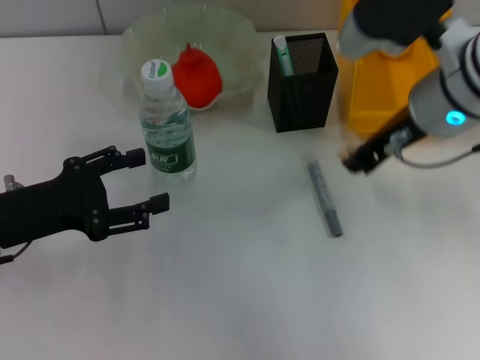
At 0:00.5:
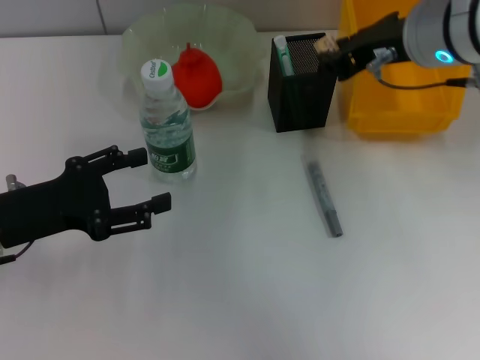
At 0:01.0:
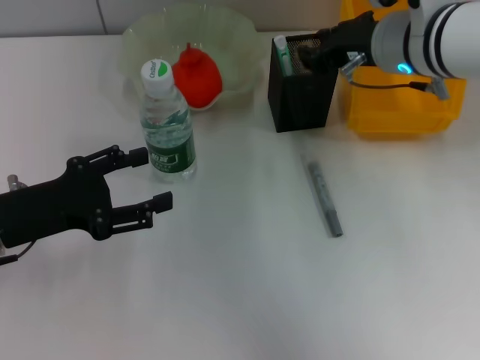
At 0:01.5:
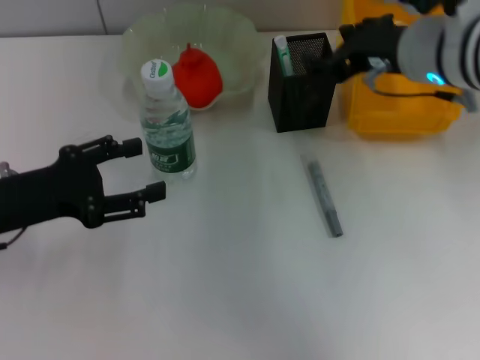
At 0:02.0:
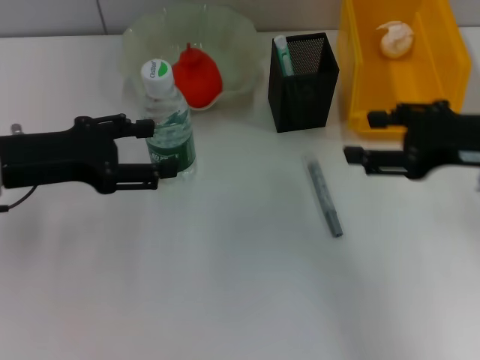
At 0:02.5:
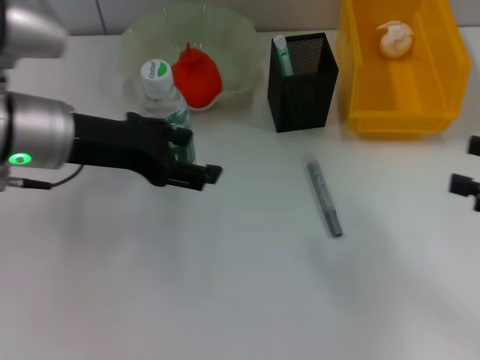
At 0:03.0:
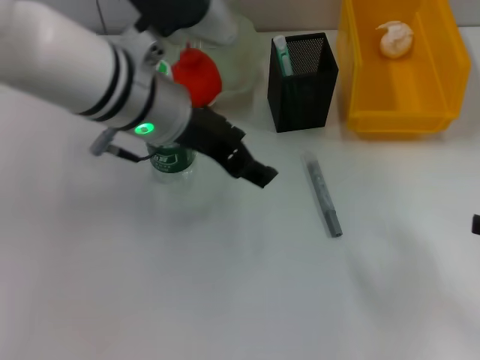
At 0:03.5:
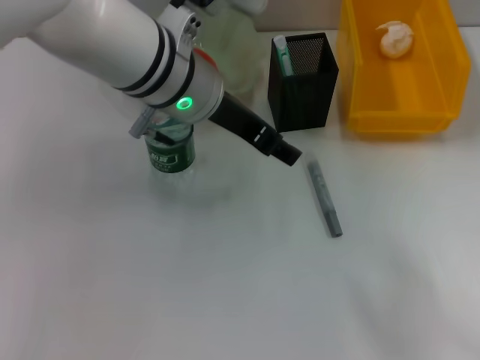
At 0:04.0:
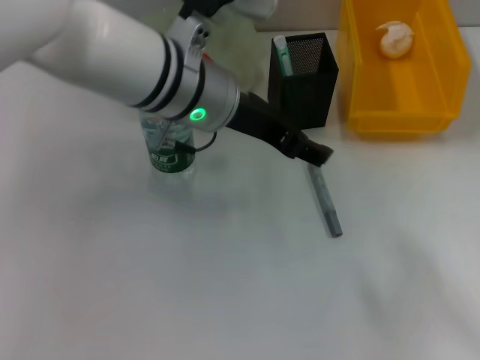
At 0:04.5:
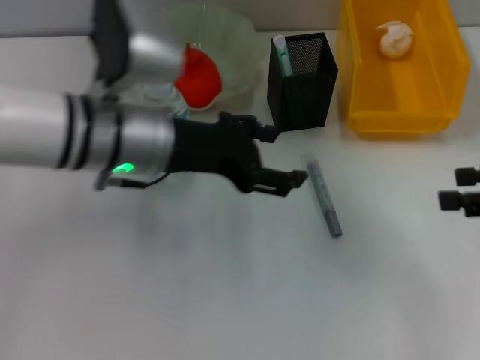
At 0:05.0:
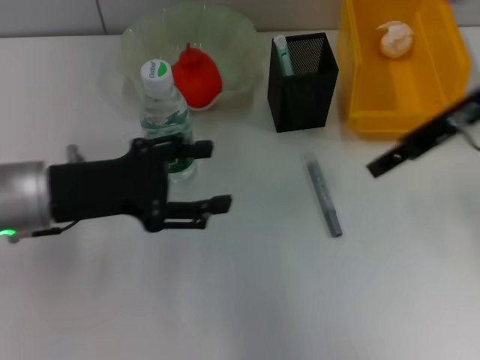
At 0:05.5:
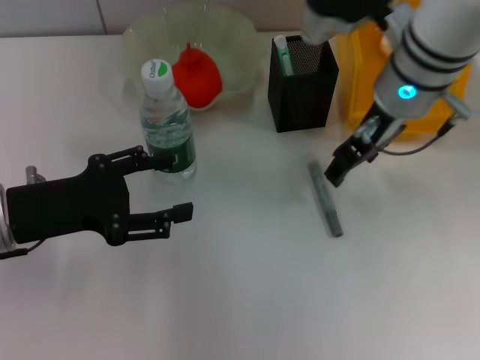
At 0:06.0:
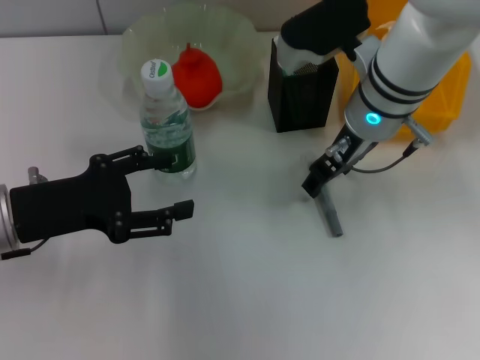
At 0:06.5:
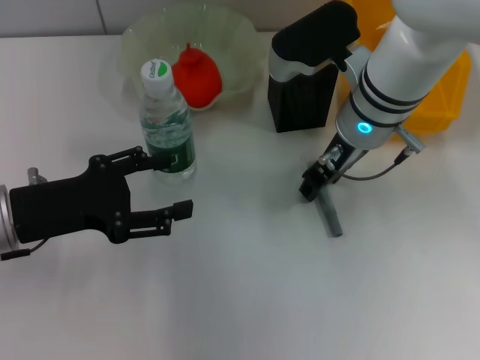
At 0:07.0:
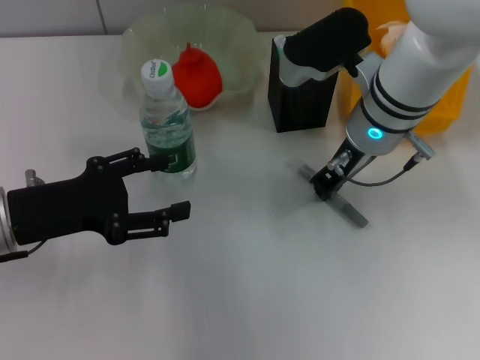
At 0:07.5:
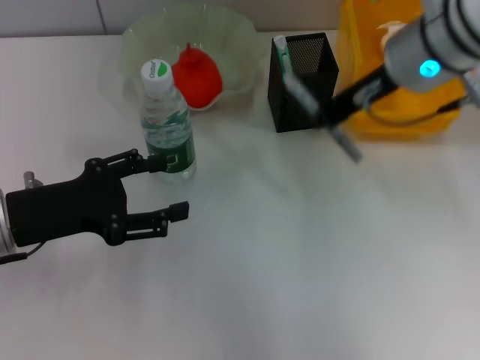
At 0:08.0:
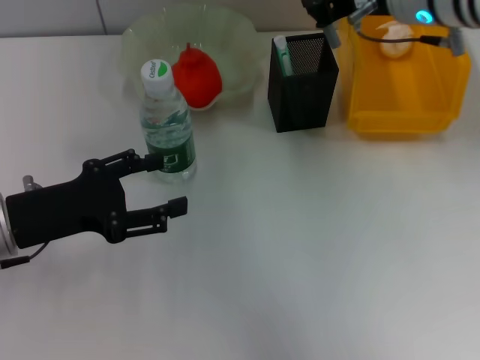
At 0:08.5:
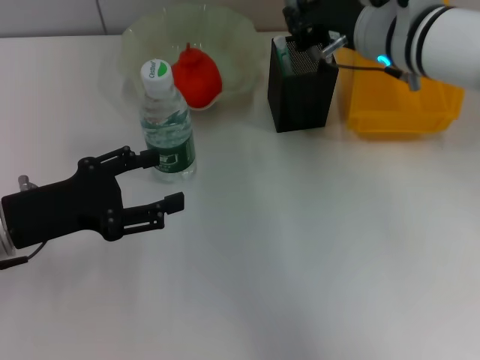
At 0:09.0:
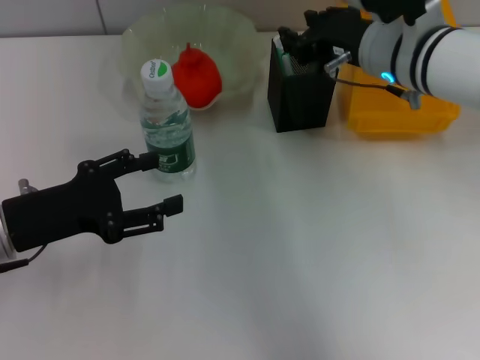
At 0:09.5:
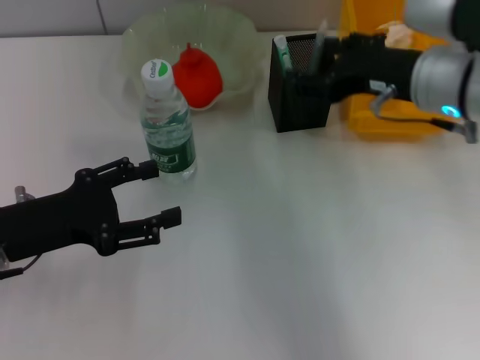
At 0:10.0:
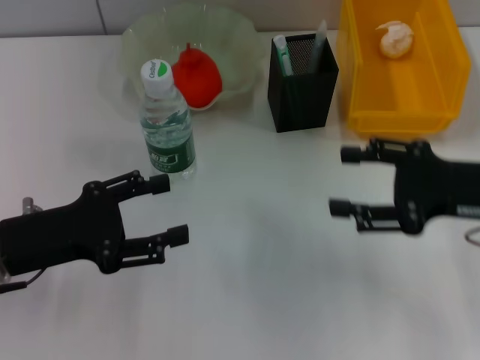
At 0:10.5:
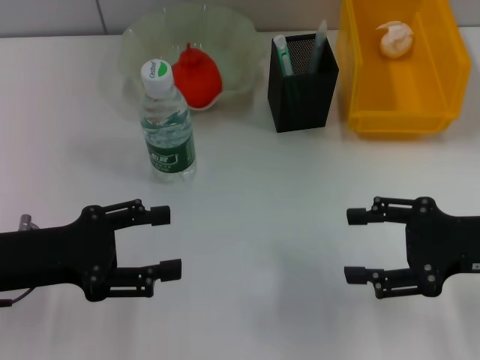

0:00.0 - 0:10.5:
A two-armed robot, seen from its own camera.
Step, 0:00.0 - 0:01.0: Put the eraser into the pen holder with the right hand.
Step, 0:01.5 - 0:06.5: Grab the gray glue with the right hand.
Step, 0:07.0 - 0:09.0: Place the gray glue into the pen holder with the right hand.
0:00.0 - 0:02.0: The right gripper is displaced to the right and backward by roughly 10 cm, and opens; the left gripper heads upward, covering approximately 5 cm.
0:02.0 - 0:04.0: The left gripper shifts roughly 20 cm to the right. Meanwhile the right gripper shifts roughly 15 cm to the right and backward.
0:04.0 - 0:06.5: The right gripper is displaced to the left and forward by roughly 35 cm. Meanwhile the left gripper shifts some 25 cm to the left, backward and downward.
0:06.5 - 0:08.5: The right gripper closes its fingers.
0:08.5 - 0:10.5: The right gripper is displaced backward, to the right and downward by roughly 20 cm, and opens.

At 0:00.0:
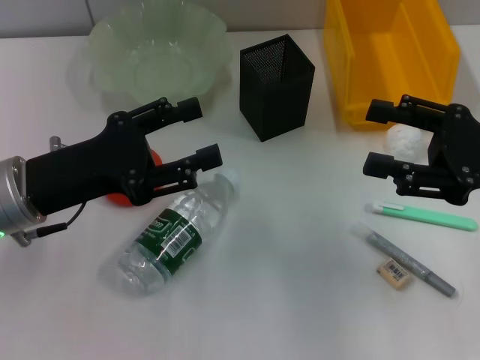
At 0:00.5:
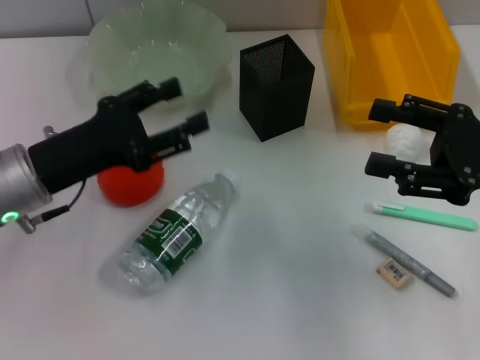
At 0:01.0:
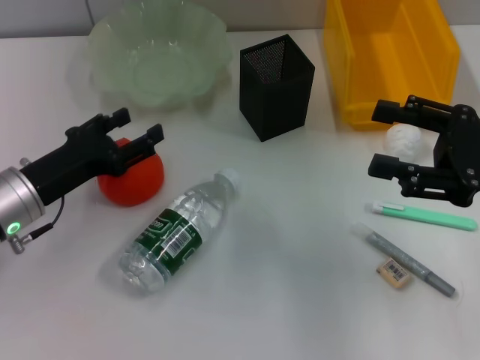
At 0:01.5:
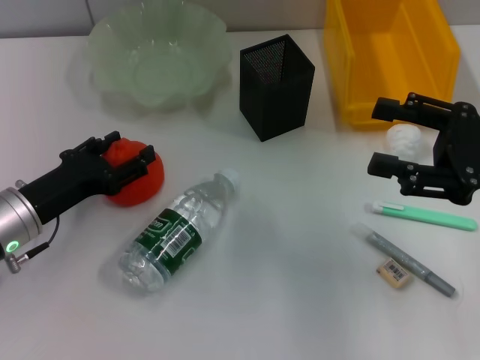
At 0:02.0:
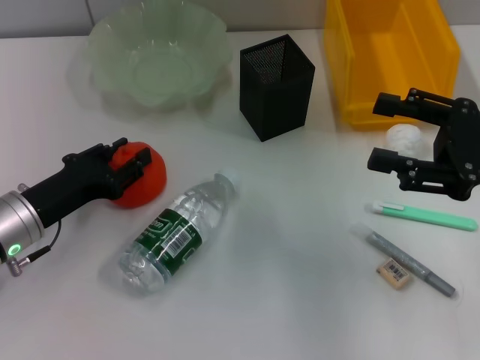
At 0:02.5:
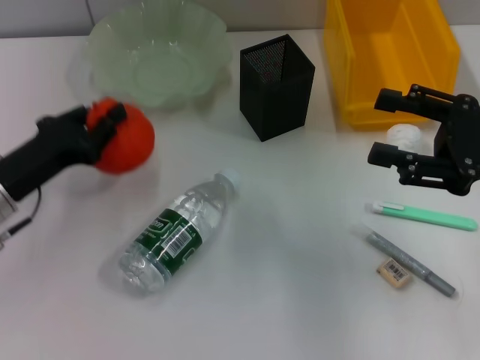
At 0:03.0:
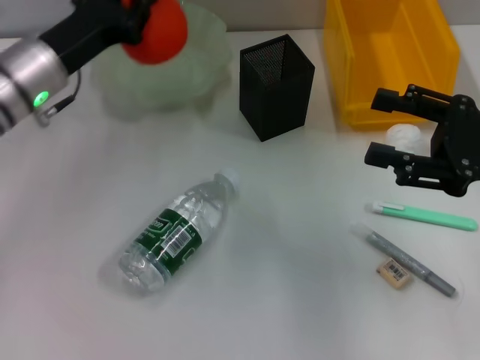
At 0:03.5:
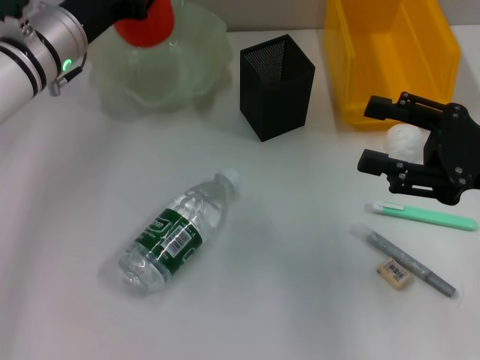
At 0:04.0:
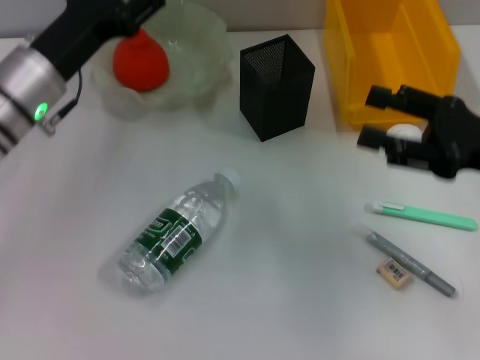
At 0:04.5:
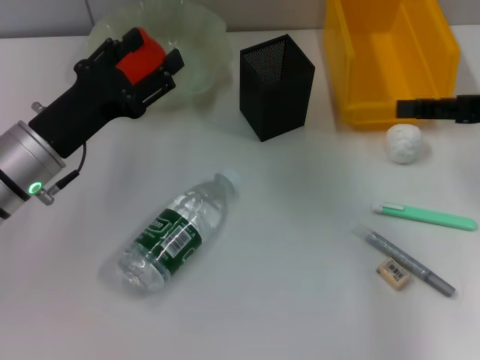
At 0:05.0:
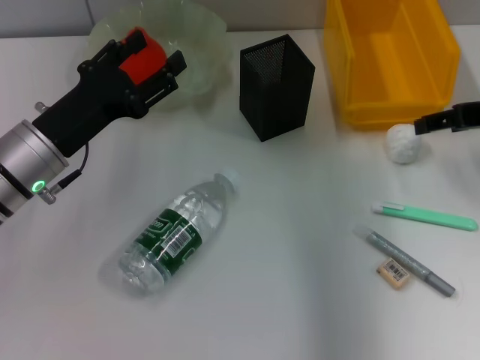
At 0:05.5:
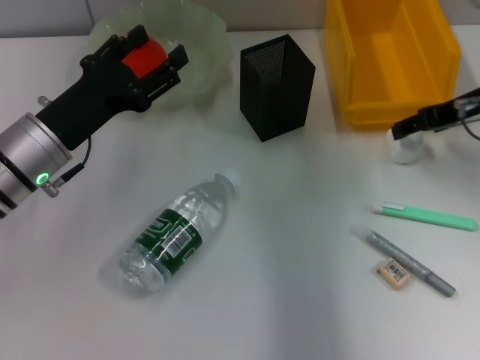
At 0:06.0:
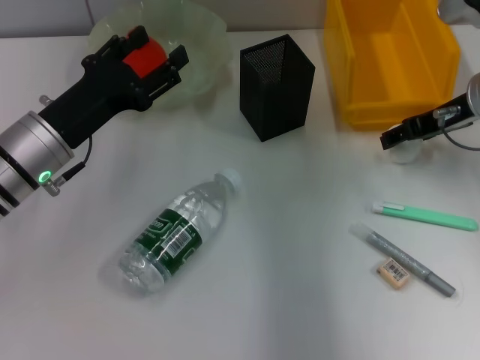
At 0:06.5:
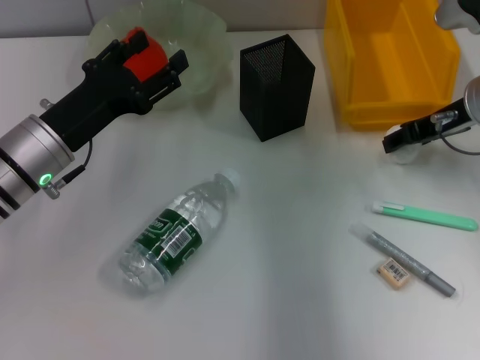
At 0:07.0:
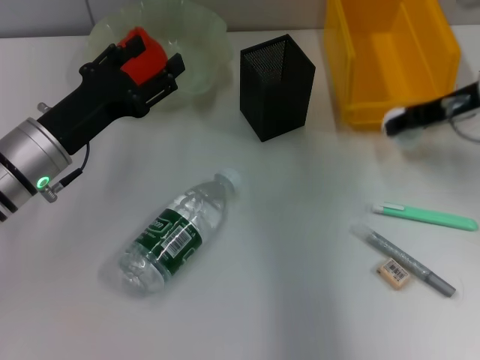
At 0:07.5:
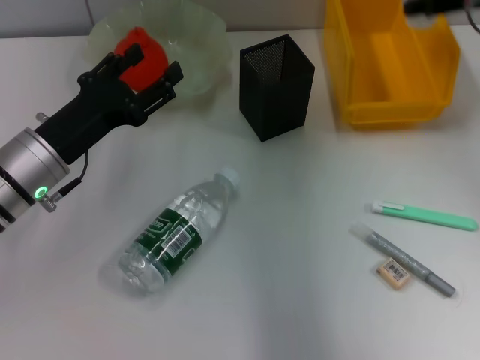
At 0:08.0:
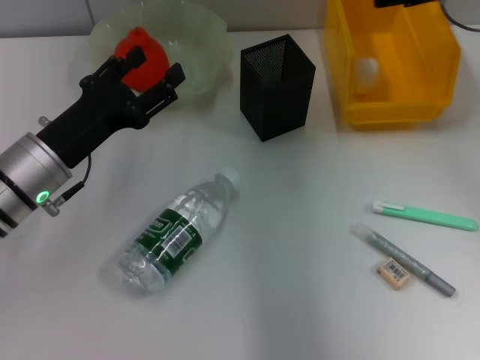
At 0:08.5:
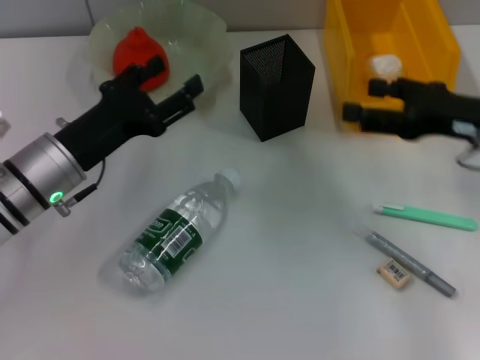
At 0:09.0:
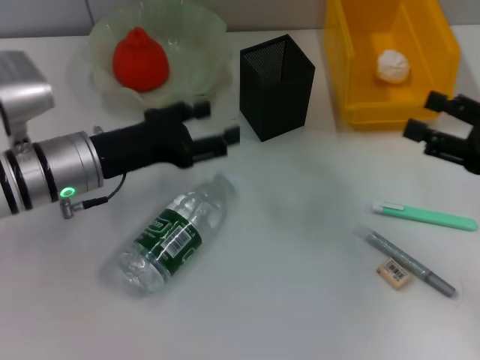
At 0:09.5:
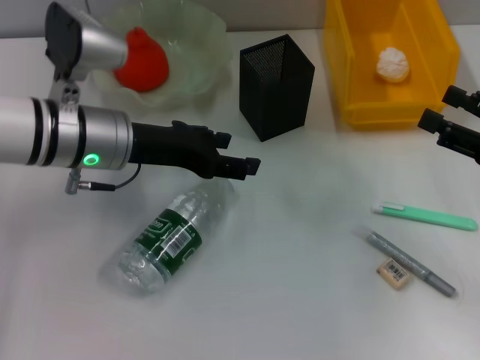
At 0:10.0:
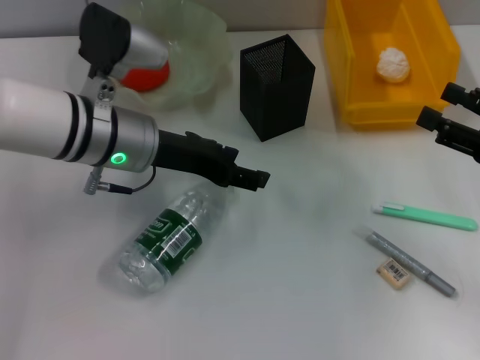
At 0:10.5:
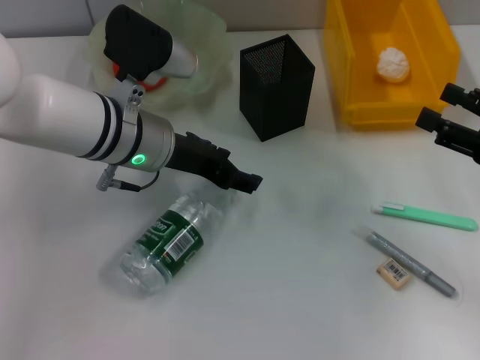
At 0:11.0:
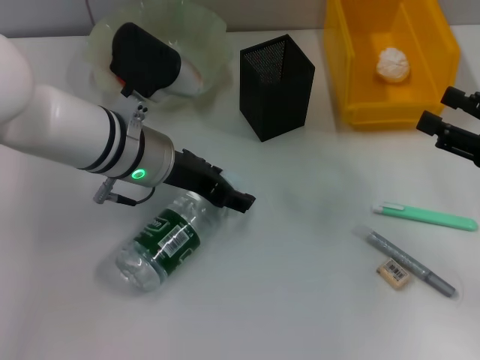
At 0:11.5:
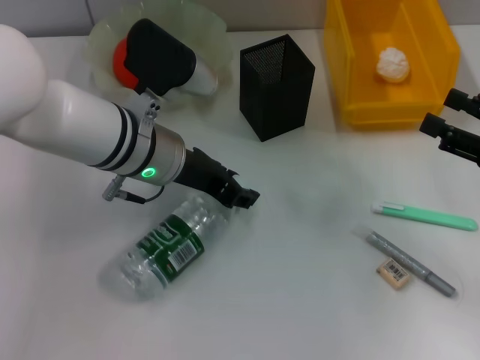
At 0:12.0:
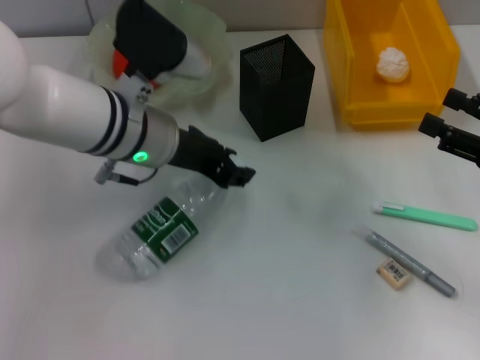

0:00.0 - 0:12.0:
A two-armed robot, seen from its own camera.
Step, 0:00.0 - 0:02.0: Grab the orange with the left hand.
Step, 0:02.5 - 0:03.5: Place the orange into the fruit bowl with the left hand.
Step, 0:04.0 - 0:06.5: Grab the paper ball with the right hand.
Step, 0:07.0 - 0:07.5: Place the paper ball into the trash can with the right hand.
Step, 0:08.0 - 0:11.5: Grab the water bottle with the left hand.
0:00.0 - 0:02.0: The left gripper goes about 10 cm downward.
0:02.0 - 0:04.0: The left gripper is displaced forward and upward by some 10 cm, and closes, then opens again.
0:04.0 - 0:06.0: The right gripper moves forward, about 10 cm.
0:06.0 - 0:08.0: The right gripper moves upward, approximately 10 cm, and closes and opens again.
0:08.0 - 0:10.0: The left gripper travels to the right and upward by approximately 10 cm. Meanwhile the right gripper is displaced backward, downward and to the right by some 20 cm.
0:10.0 - 0:12.0: The left gripper closes.

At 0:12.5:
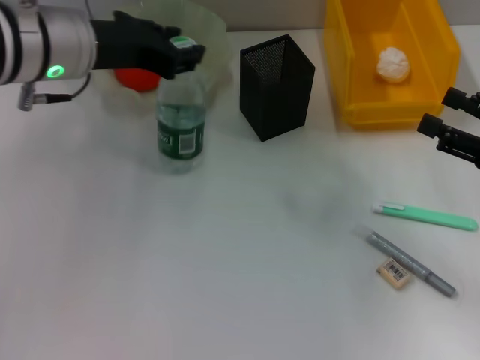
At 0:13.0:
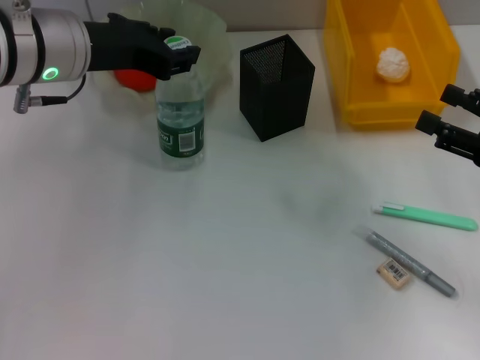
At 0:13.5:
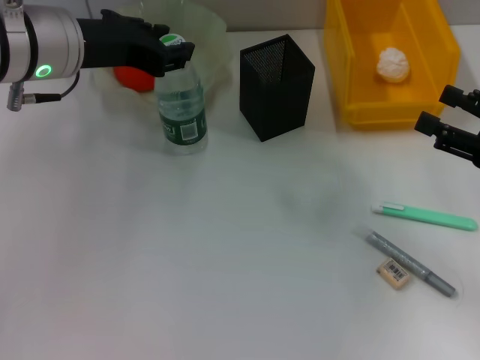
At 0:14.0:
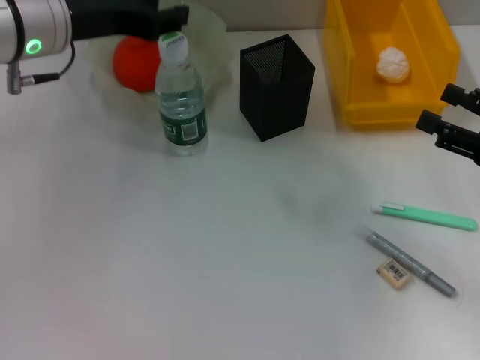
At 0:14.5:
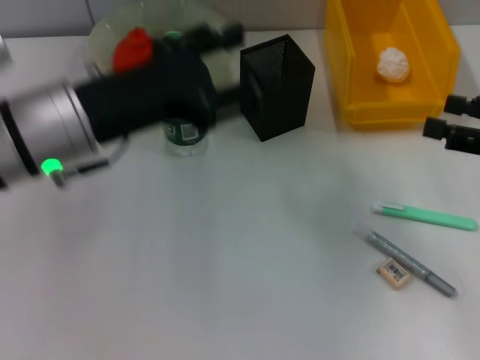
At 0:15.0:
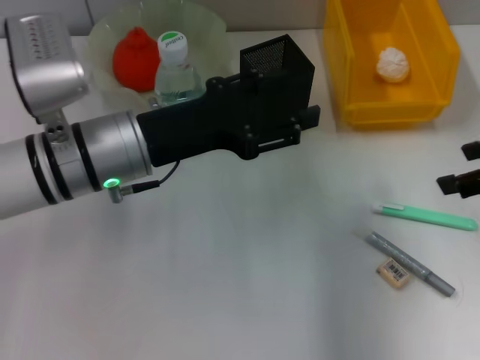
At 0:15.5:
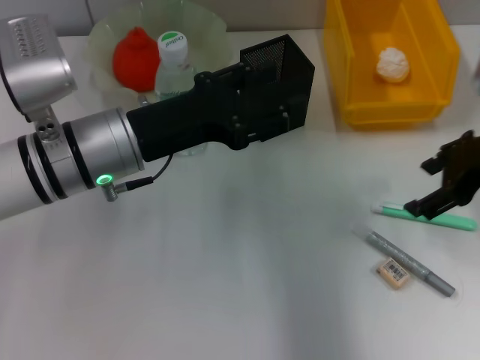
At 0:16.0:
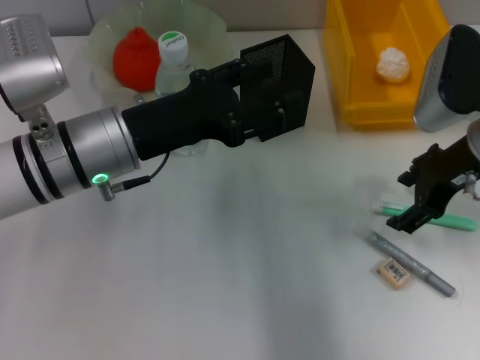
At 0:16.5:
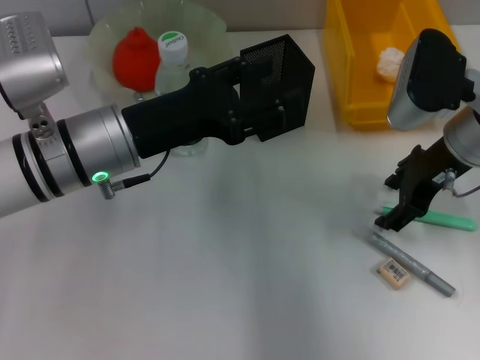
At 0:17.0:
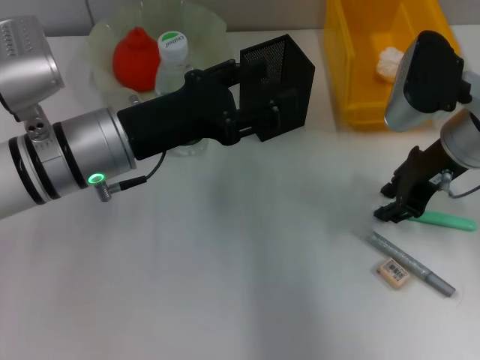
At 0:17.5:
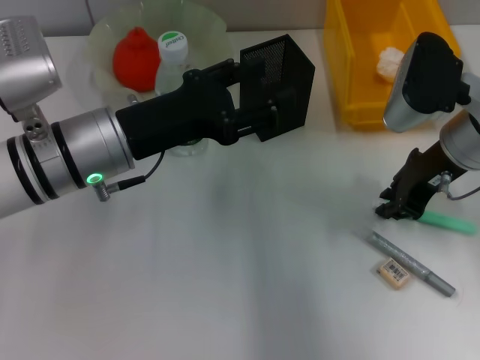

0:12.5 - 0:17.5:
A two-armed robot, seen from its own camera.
Step, 0:12.5 - 0:14.0: Place the water bottle on the table with the left hand.
0:12.5 - 0:15.0: The right gripper shifts some 10 cm upward; the left gripper goes roughly 10 cm downward and backward, and opens up.
0:15.0 - 0:17.5: The right gripper shifts about 15 cm to the left, downward and forward, and closes its fingers.
